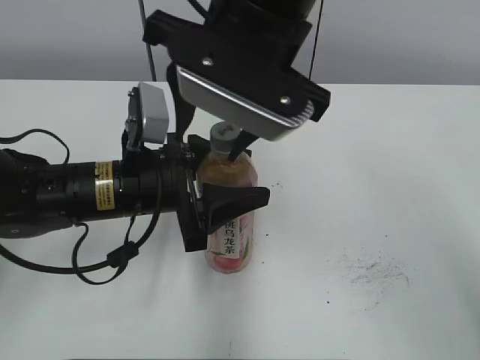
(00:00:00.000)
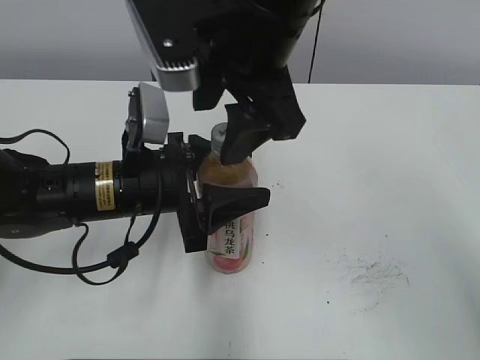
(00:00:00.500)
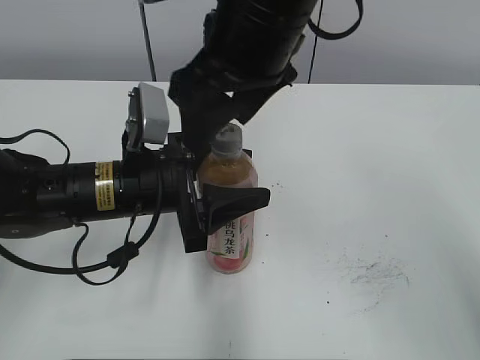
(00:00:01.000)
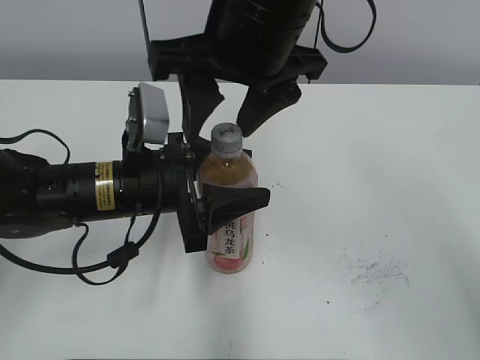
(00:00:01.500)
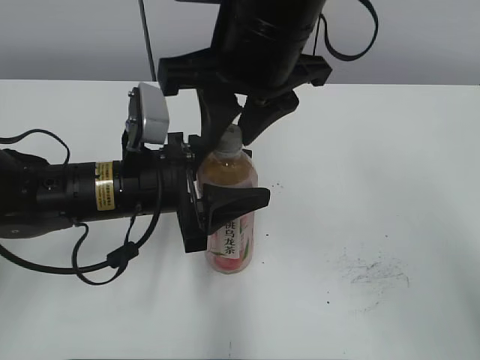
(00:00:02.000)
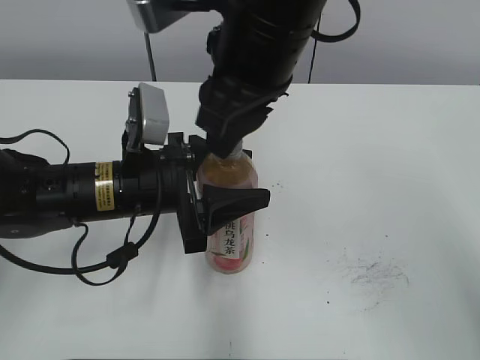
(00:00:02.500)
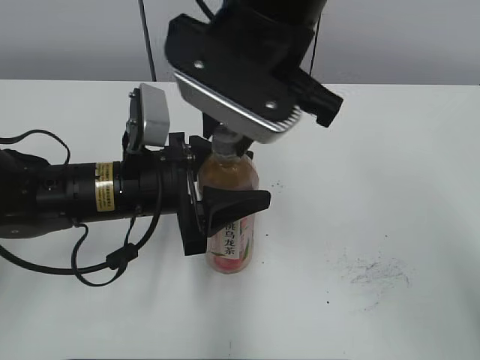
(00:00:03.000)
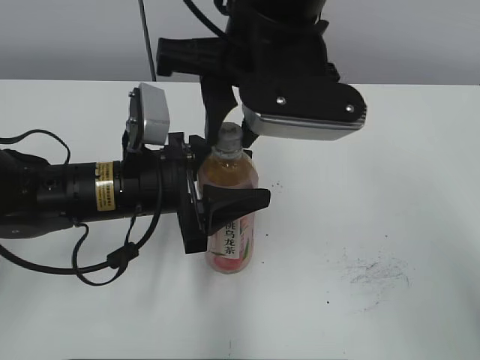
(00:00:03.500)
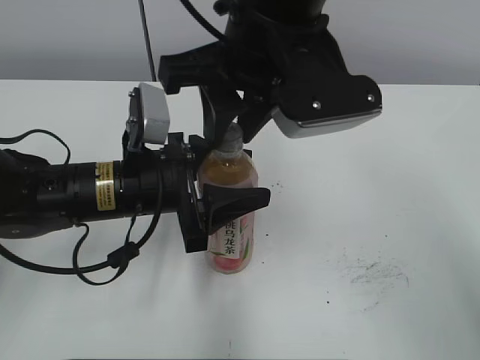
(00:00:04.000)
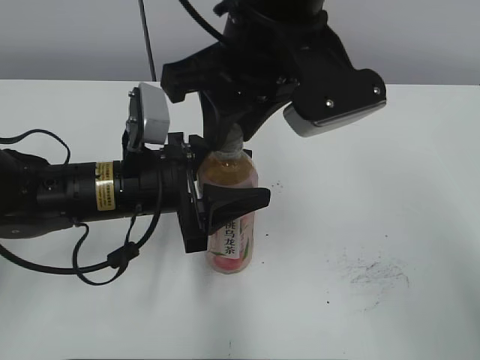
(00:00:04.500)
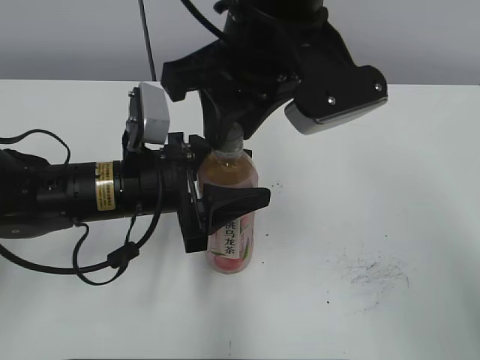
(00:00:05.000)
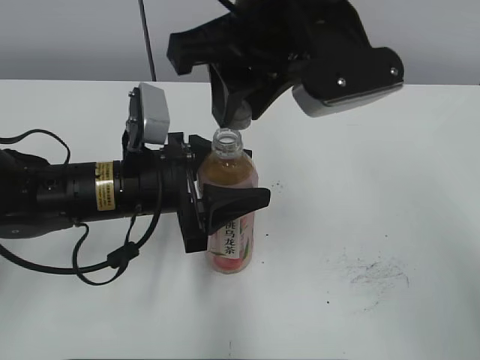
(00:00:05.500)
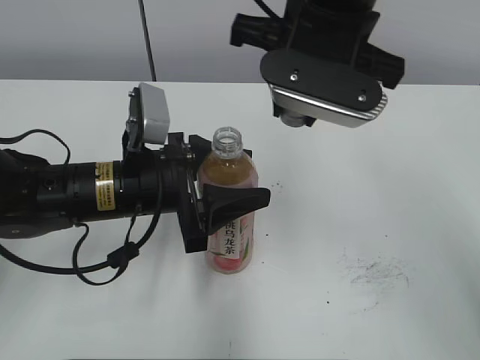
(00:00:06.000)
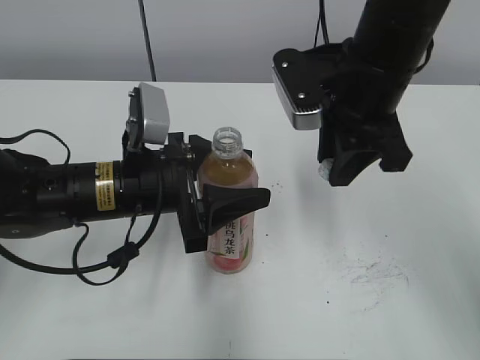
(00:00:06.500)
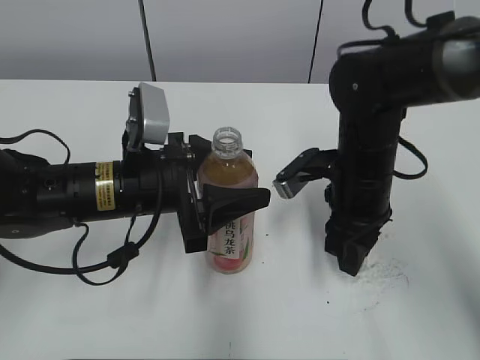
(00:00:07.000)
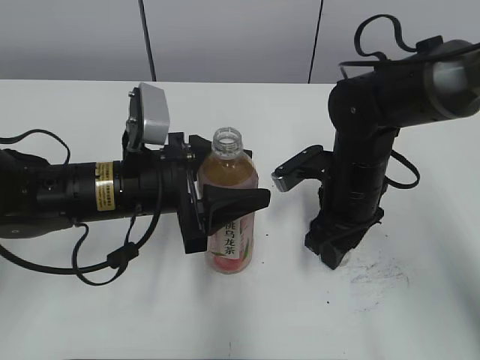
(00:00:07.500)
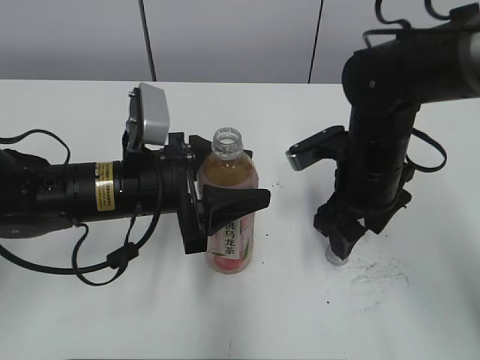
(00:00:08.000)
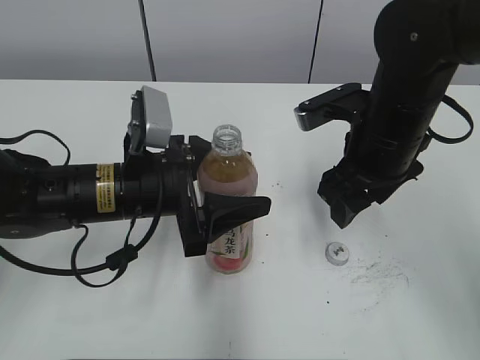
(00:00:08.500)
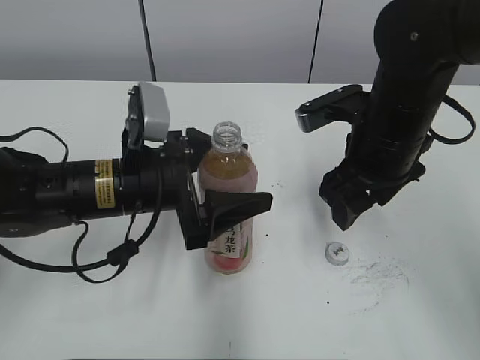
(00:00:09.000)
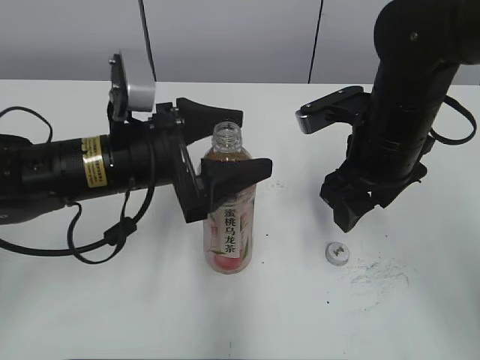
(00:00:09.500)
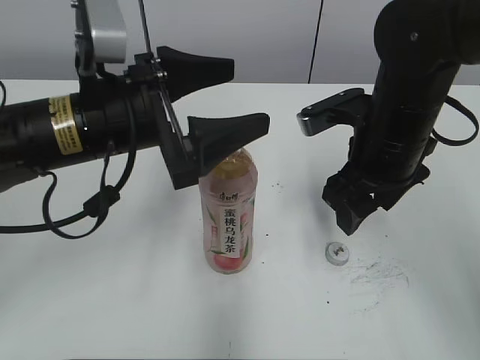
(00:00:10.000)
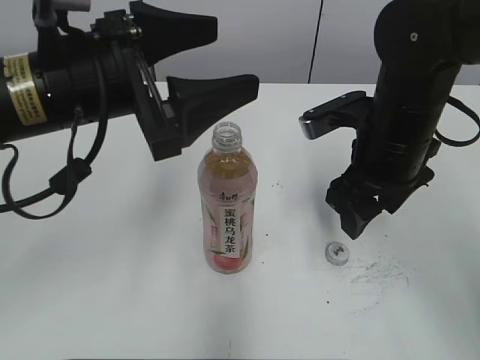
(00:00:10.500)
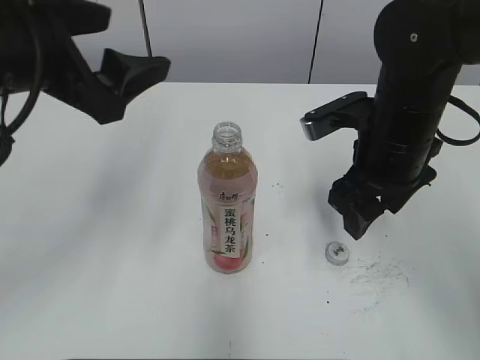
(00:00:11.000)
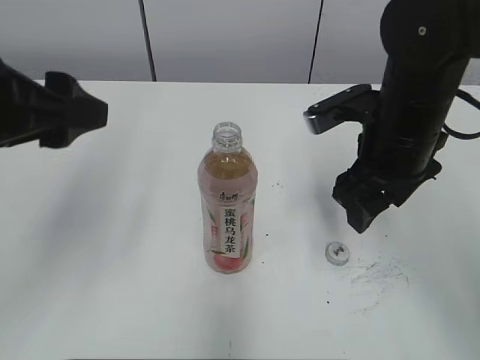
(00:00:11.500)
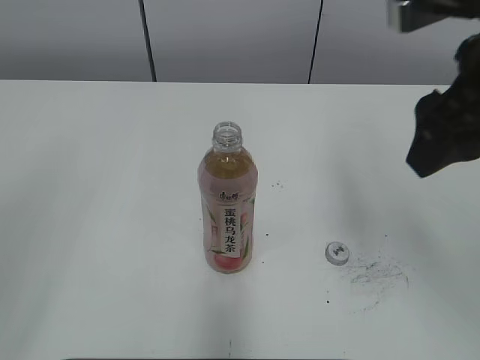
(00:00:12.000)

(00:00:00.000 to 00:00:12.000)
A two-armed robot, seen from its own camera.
Step, 00:00:06.000 - 00:00:08.500: Place the bottle cap on the right.
Step, 00:00:09.000 - 00:00:10.000: Place the Peach Oolong Tea with the left hand.
00:00:00.000 - 00:00:02.000: The right gripper opens and closes again.
00:00:04.000 - 00:00:06.000: The right gripper shifts by some 5 cm.
00:00:06.000 - 00:00:08.000: The right gripper moves downward and to the right, roughly 20 cm, and opens.
00:00:08.000 - 00:00:10.000: Both grippers travel together upward, approximately 5 cm. The left gripper opens its fingers.
00:00:10.000 - 00:00:12.000: The left gripper is displaced backward, to the left and upward by approximately 25 cm, and closes, while the right gripper goes about 15 cm upward and backward.

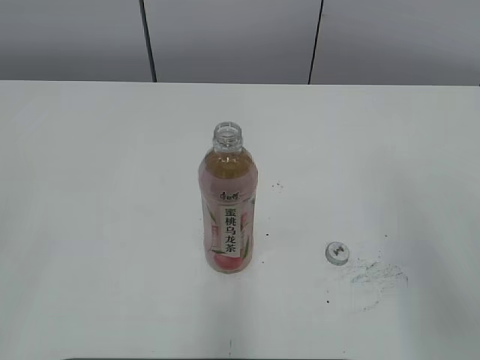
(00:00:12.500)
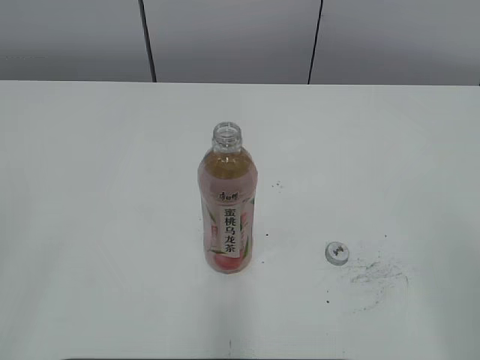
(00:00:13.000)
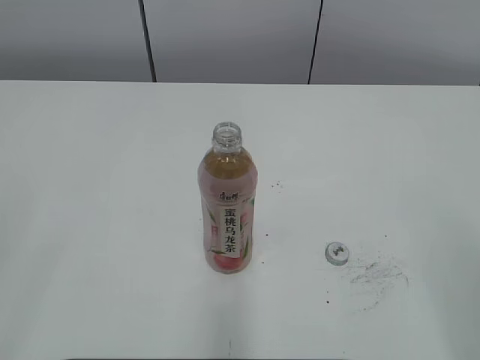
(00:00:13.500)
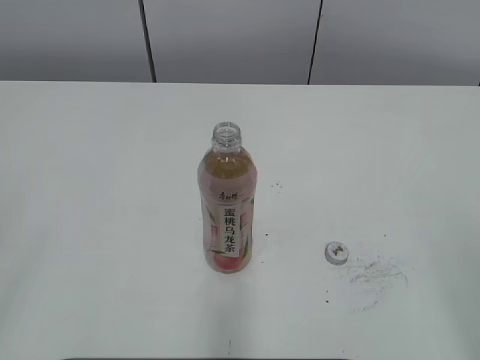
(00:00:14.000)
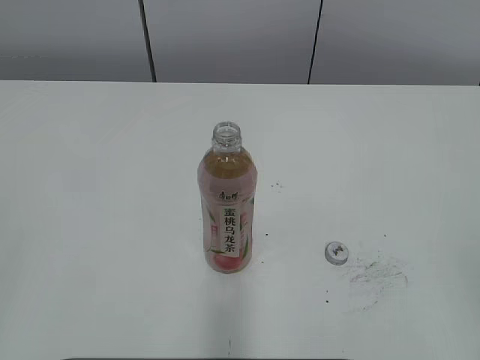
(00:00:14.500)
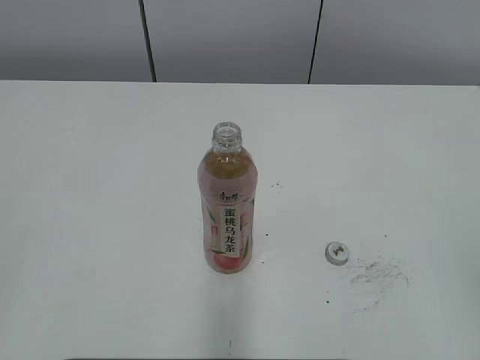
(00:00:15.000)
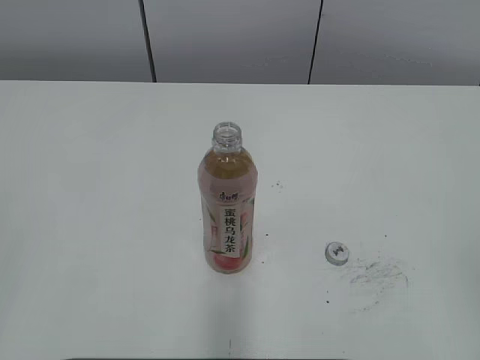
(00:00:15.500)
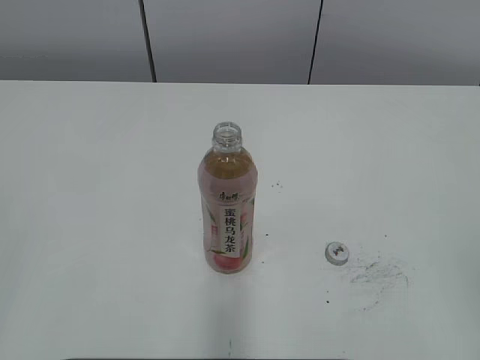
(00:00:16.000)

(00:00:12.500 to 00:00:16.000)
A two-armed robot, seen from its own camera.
00:00:12.500 - 00:00:14.500: The right gripper travels backward and to the right by about 10 cm.
00:00:14.500 - 00:00:16.000: The two grippers keep their place.

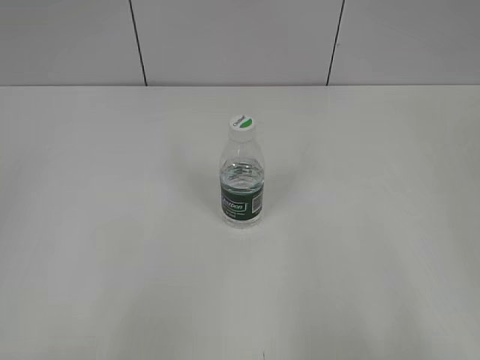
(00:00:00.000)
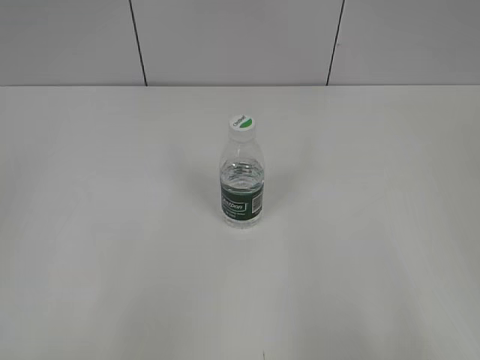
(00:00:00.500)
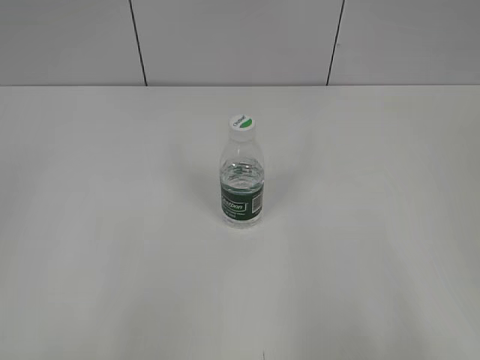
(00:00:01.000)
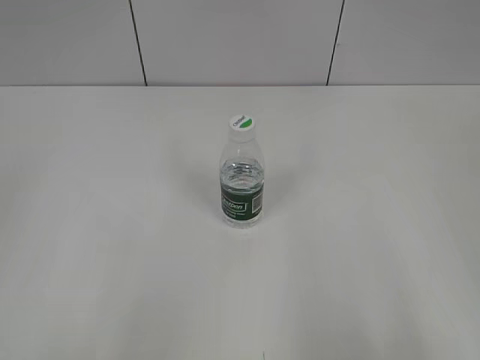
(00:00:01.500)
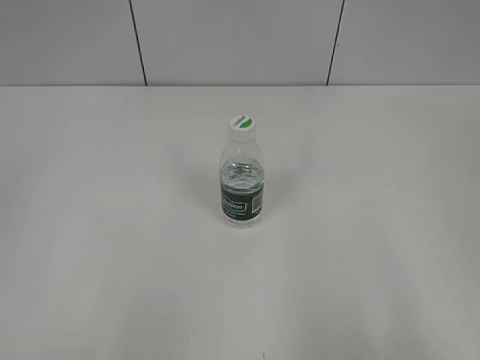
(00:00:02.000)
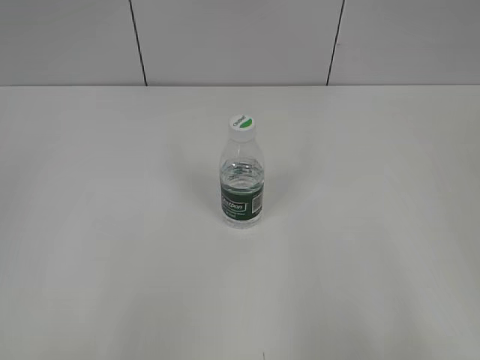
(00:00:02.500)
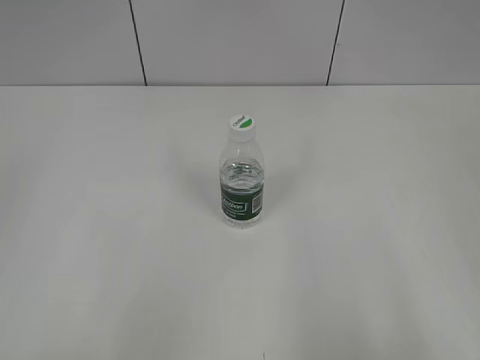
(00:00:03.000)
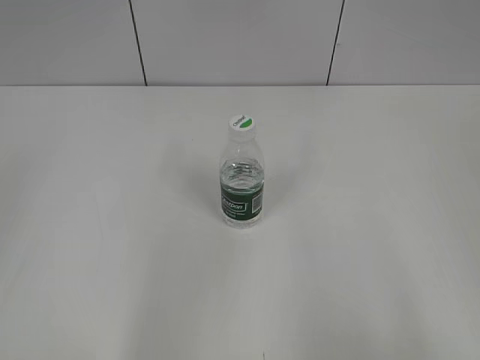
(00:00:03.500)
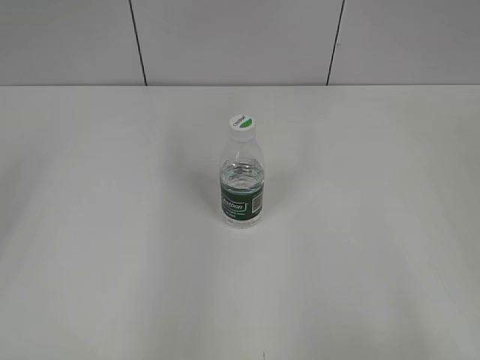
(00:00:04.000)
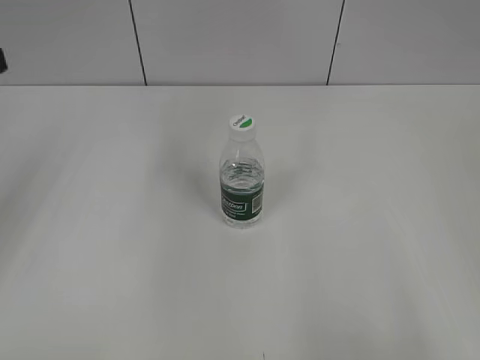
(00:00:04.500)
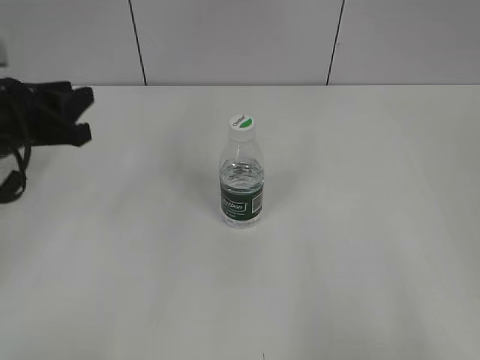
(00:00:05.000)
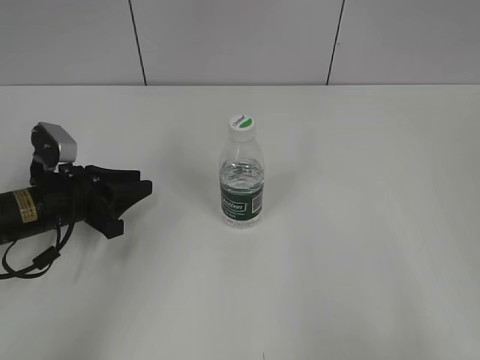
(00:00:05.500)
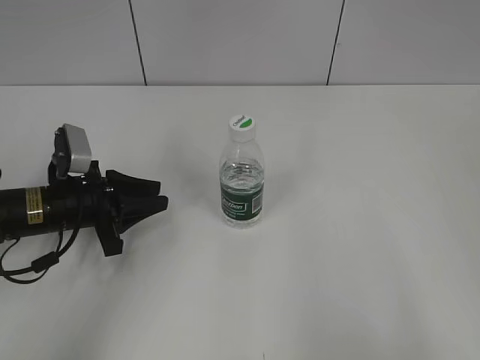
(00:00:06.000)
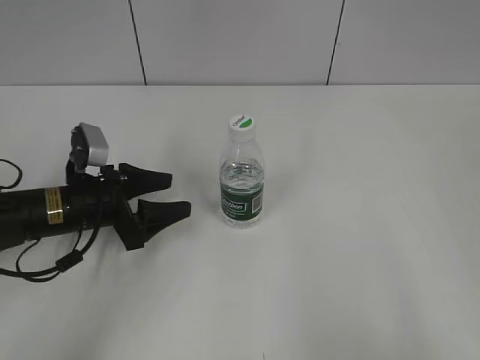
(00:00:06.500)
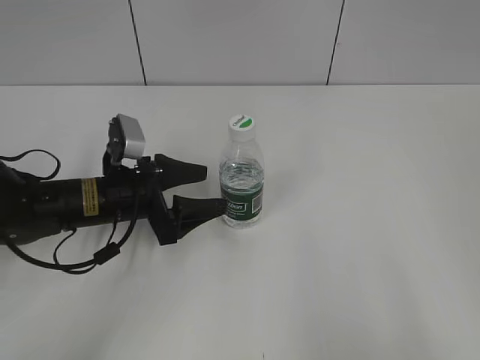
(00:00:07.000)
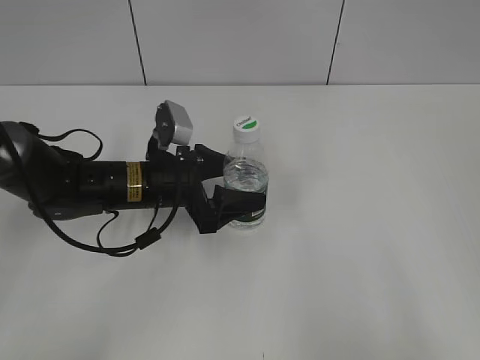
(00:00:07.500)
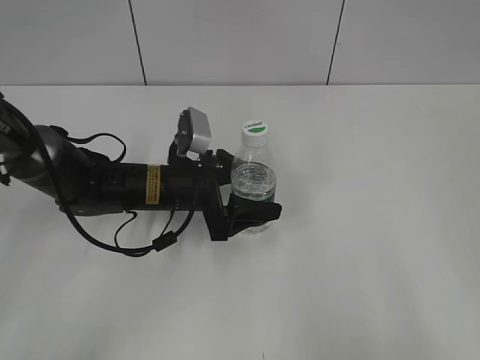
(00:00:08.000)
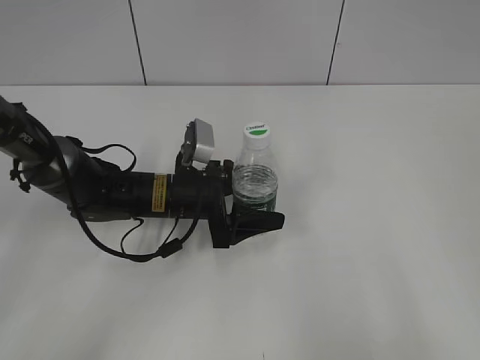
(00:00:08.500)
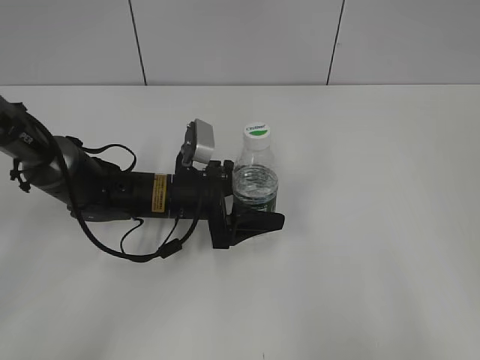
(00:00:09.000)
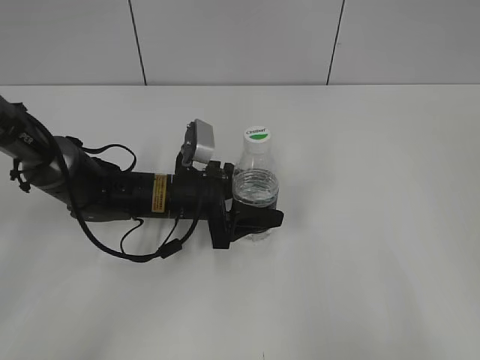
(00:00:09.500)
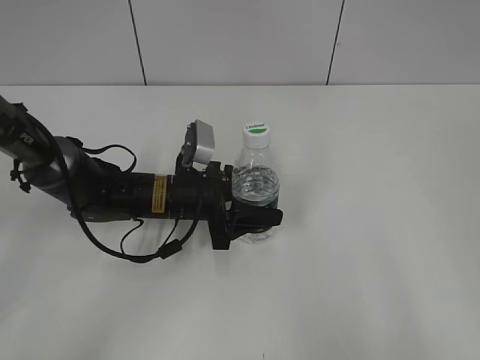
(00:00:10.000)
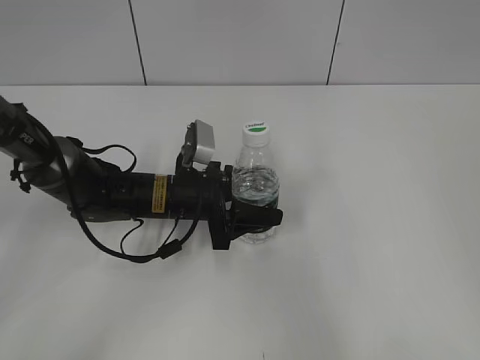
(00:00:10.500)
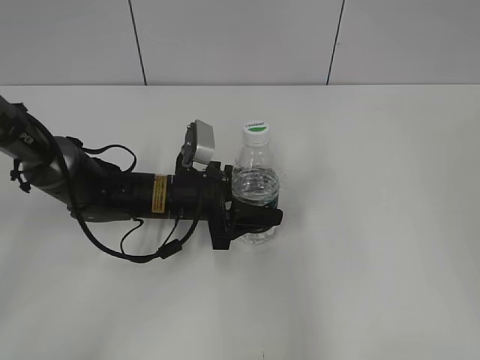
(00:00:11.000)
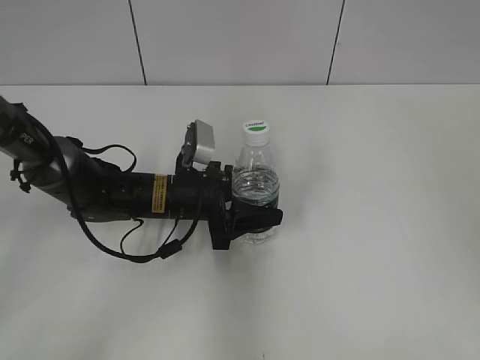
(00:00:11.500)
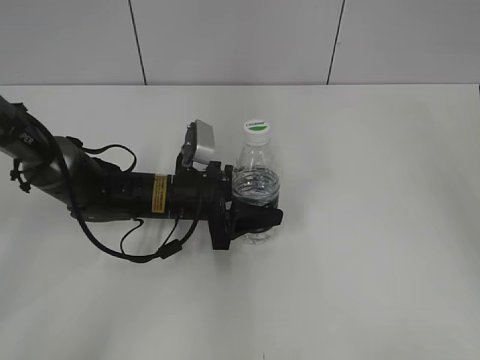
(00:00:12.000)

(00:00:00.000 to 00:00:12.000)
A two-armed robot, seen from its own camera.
Step, 00:00:00.000 - 00:00:10.500: Grasp the bottle and move it to the center of the table with the left gripper.
00:00:04.000 - 00:00:06.000: The left gripper moves downward and forward, about 30 cm.
00:00:06.000 - 00:00:08.000: The left gripper moves to the right, about 15 cm, and opens.
00:00:08.000 - 00:00:10.000: The left gripper closes up.
00:00:10.000 - 00:00:12.000: The right gripper goes about 25 cm forward.
